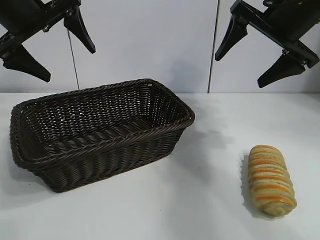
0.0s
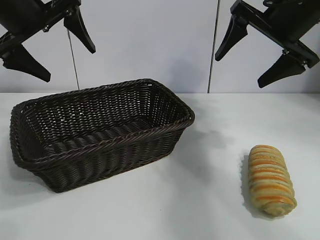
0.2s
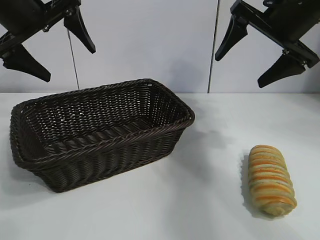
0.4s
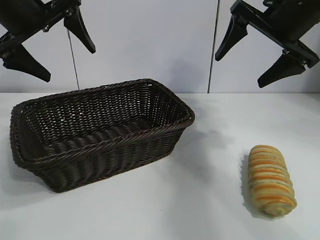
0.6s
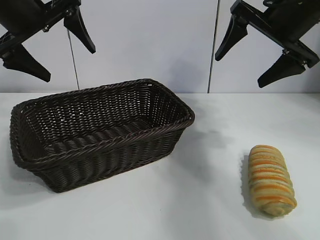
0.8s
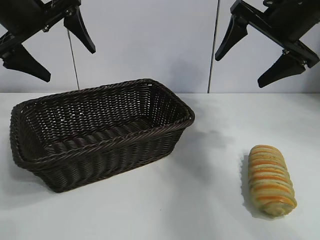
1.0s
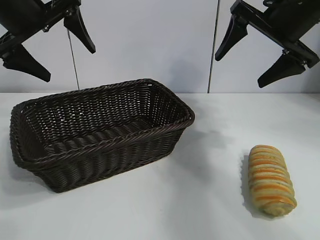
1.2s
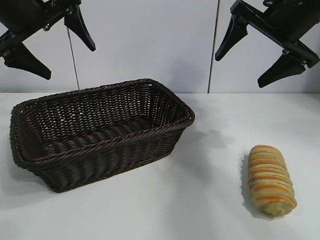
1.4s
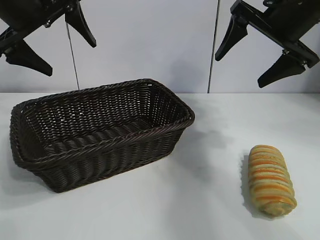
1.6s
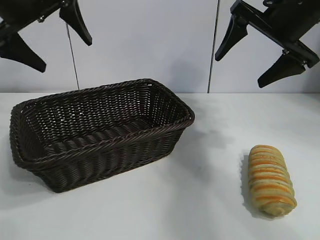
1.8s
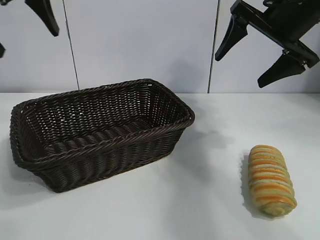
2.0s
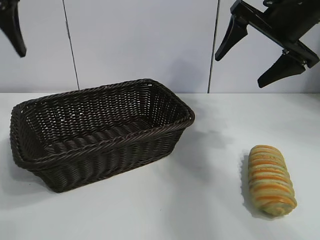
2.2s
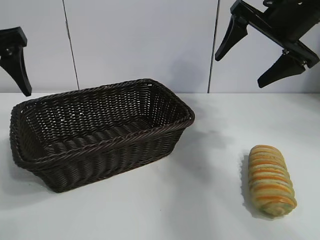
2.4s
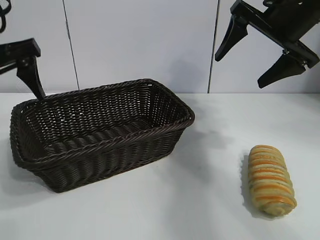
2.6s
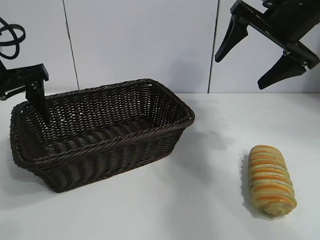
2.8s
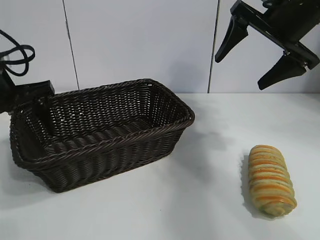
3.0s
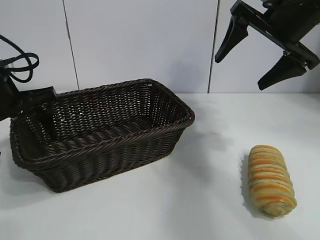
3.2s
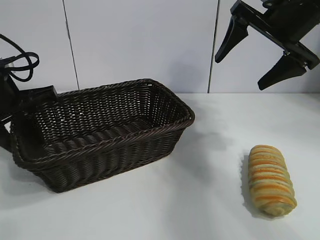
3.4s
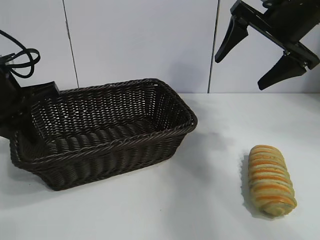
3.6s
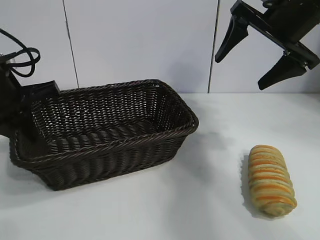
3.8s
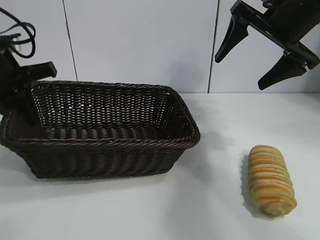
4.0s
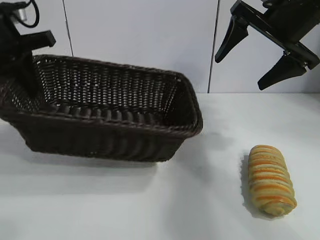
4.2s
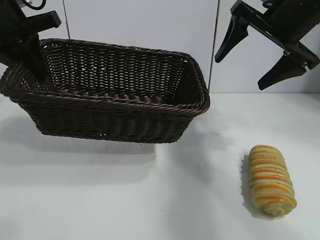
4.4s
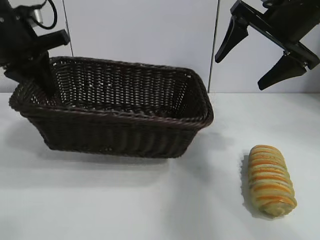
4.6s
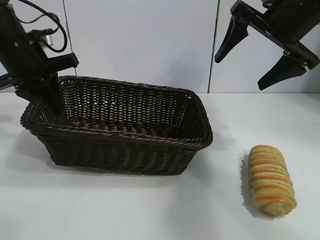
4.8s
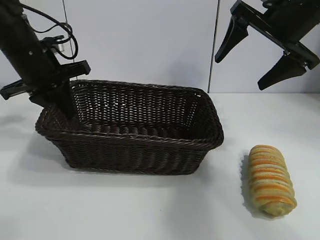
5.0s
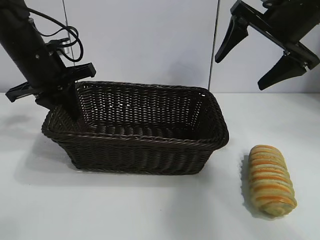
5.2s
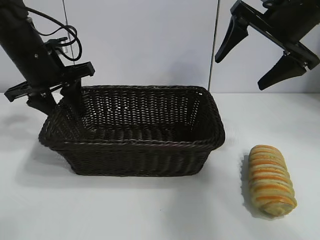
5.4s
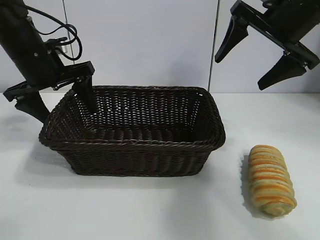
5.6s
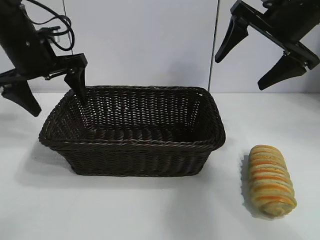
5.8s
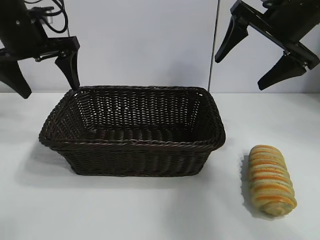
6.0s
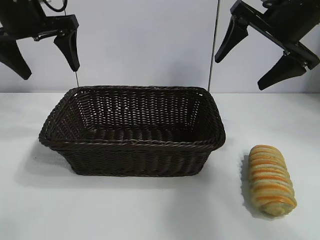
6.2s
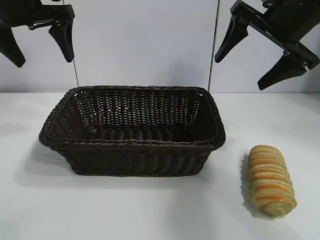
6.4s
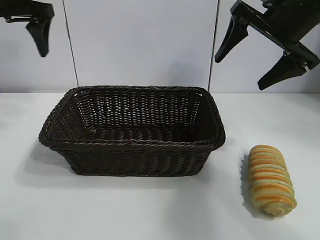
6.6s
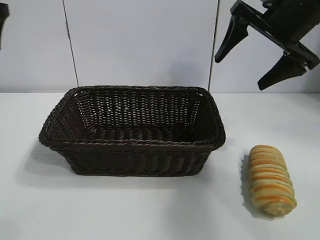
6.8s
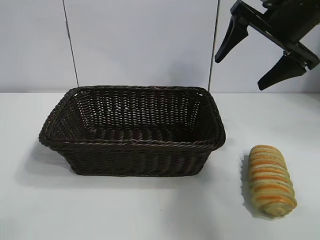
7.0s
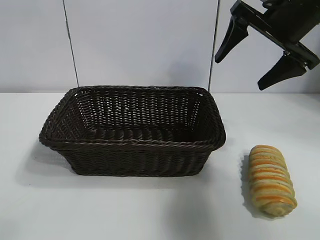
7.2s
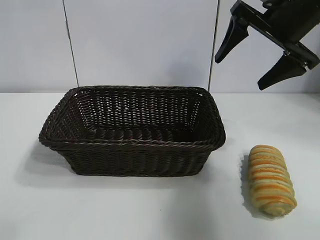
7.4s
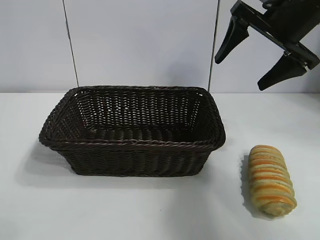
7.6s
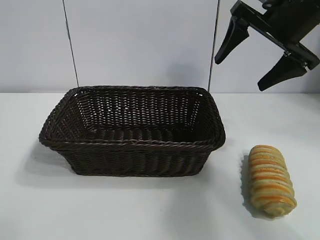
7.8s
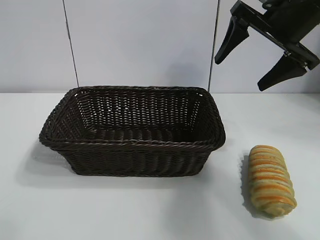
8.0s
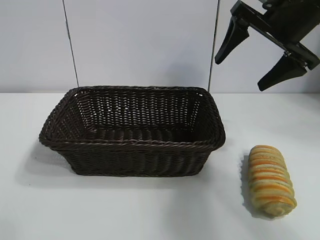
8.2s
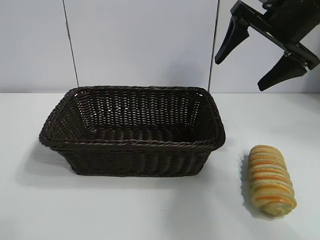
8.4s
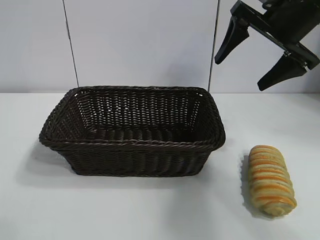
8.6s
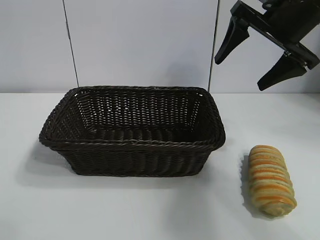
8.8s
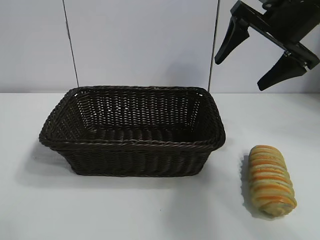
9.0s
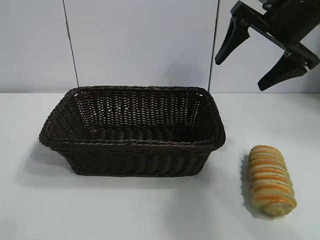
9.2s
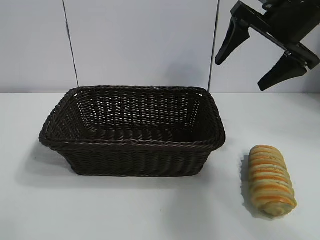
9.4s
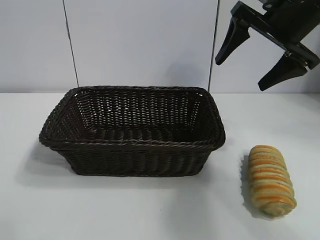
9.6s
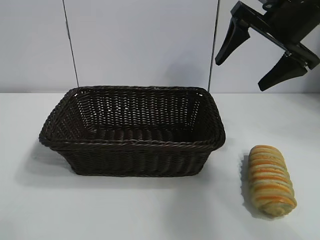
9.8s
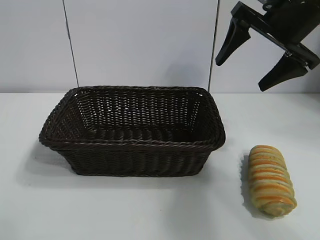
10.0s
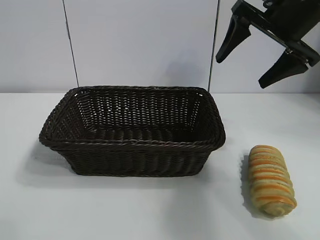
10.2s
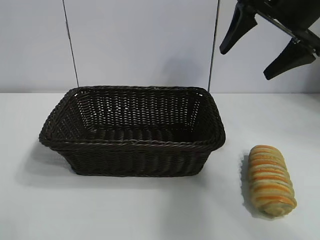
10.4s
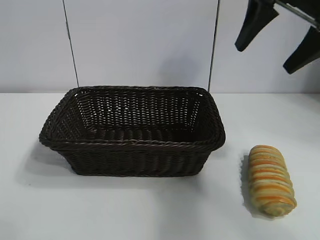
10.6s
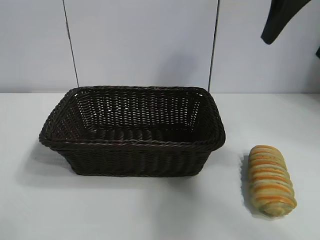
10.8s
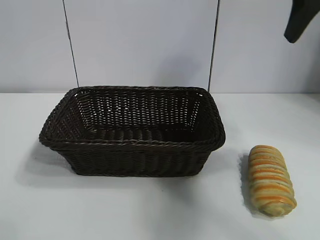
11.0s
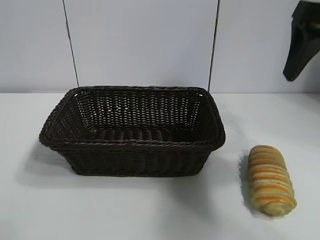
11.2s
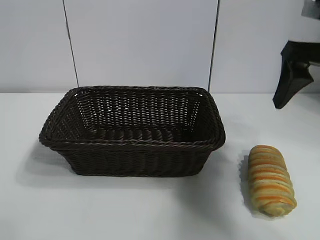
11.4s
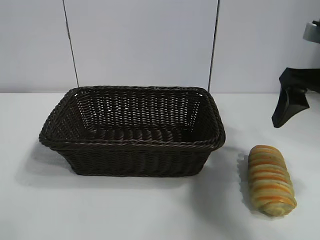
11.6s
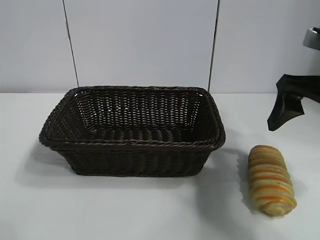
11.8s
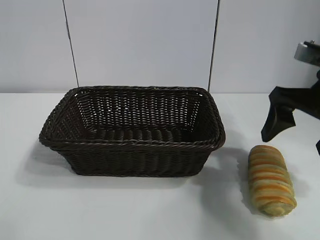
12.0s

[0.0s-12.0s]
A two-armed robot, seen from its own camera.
Task of the whole recording: pick up the long bread and put it into the basket.
Step, 1.4s to 3.2s: Grasp the basket with the left gripper.
Step, 3.6s to 6.0s: Place the basket in the center of the table with the left gripper.

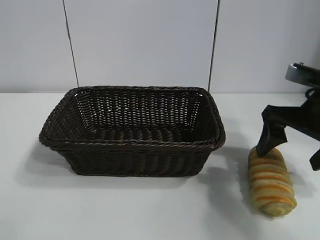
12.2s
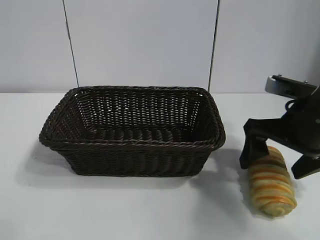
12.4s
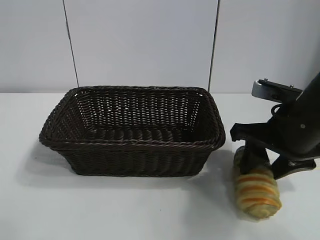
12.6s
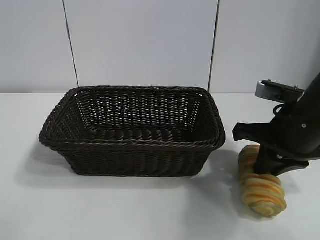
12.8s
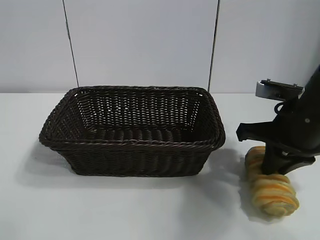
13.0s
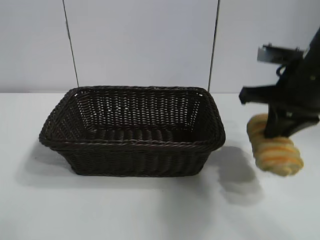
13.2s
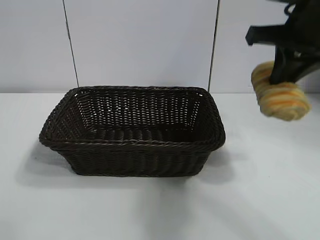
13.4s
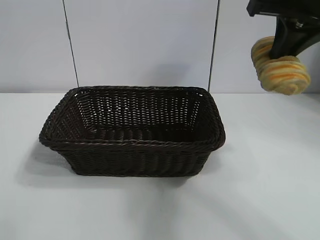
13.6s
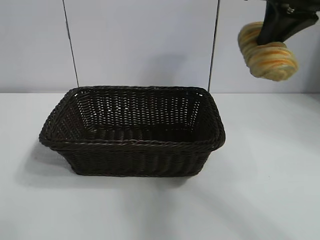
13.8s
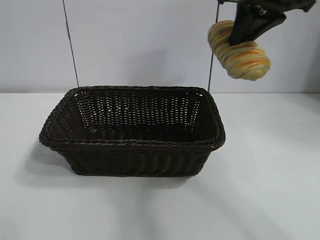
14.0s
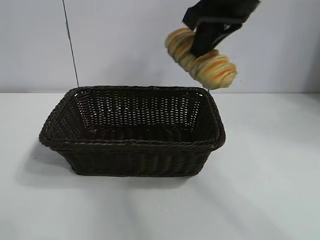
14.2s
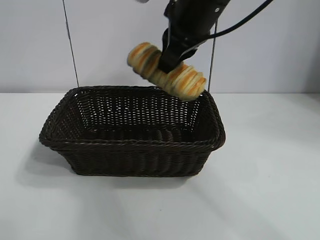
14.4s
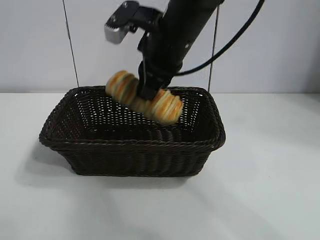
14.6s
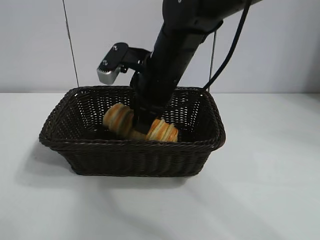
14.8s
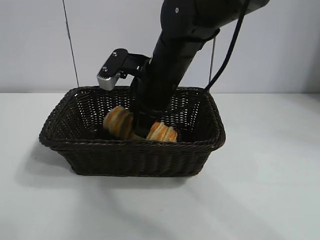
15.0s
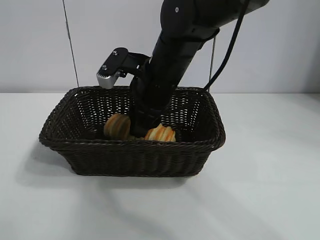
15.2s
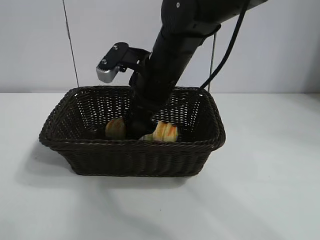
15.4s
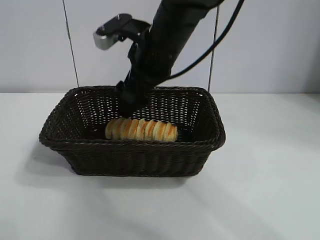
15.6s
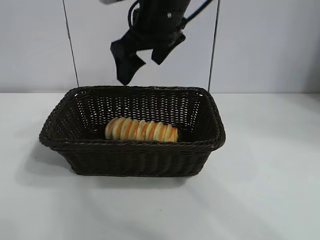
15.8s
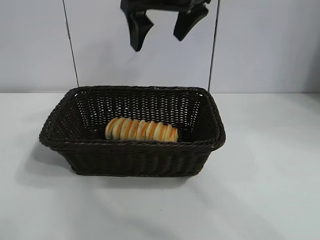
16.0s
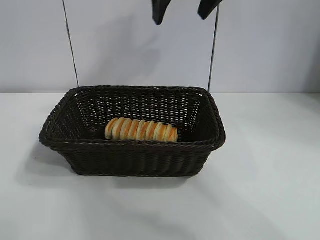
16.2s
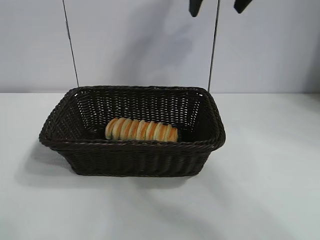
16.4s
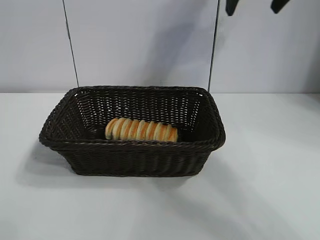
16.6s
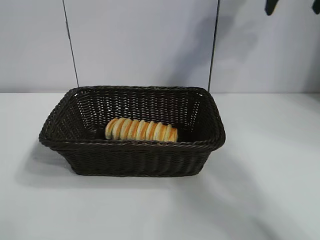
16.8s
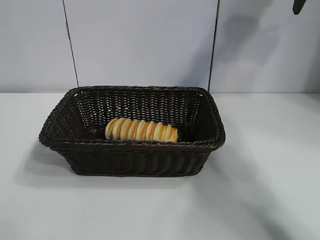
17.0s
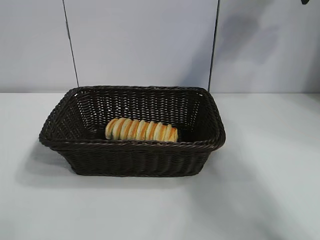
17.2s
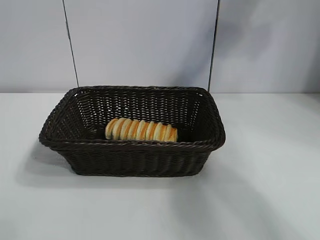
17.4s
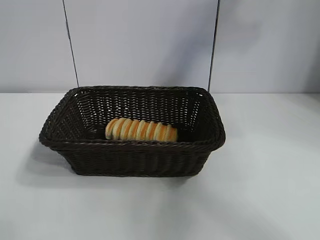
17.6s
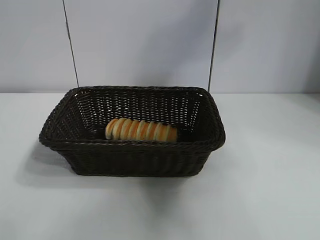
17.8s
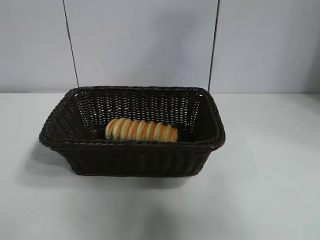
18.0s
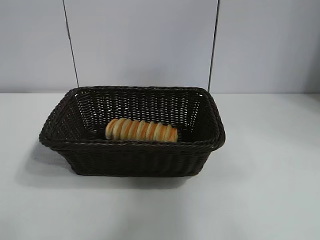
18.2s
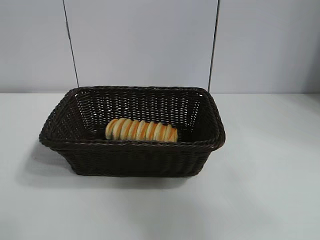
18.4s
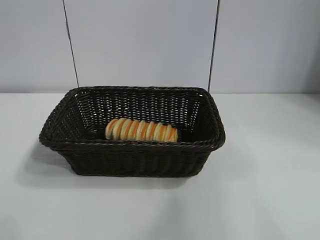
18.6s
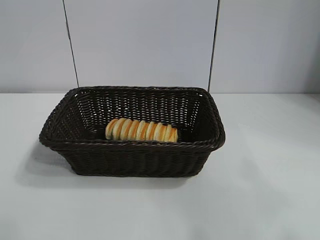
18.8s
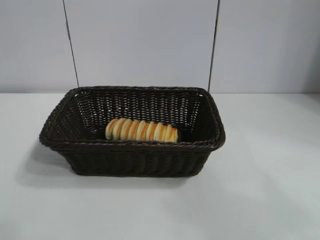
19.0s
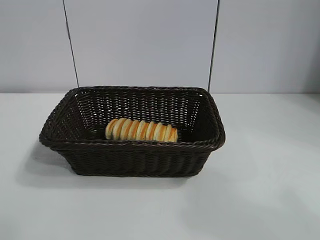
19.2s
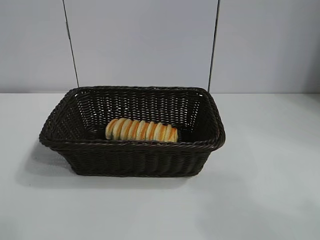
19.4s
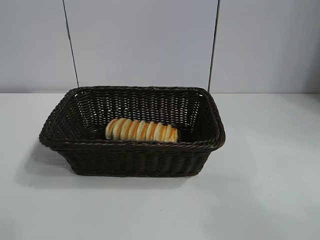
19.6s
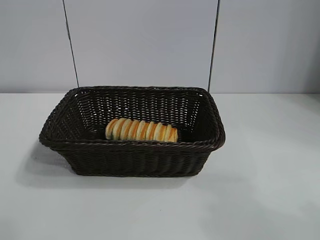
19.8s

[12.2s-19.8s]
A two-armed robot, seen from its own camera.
Task of the whole recording: pick up the long bread and put it into the basket.
Step, 13.0s to 15.2s: Place the long bread in the basket with right gripper.

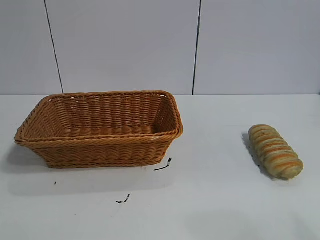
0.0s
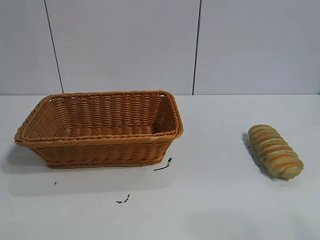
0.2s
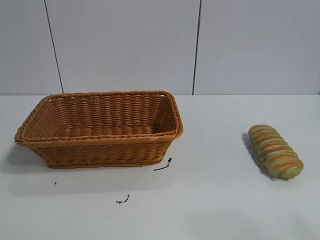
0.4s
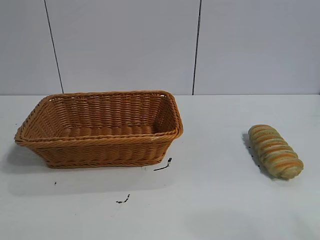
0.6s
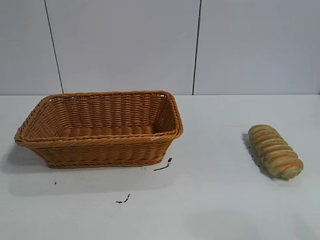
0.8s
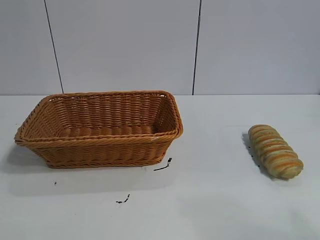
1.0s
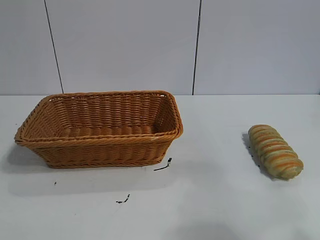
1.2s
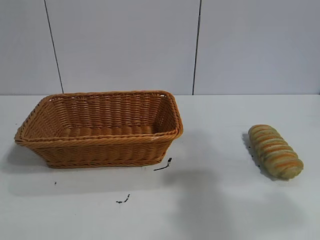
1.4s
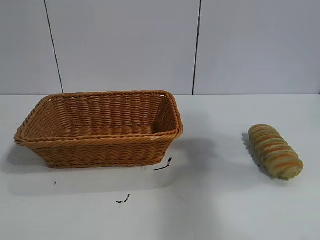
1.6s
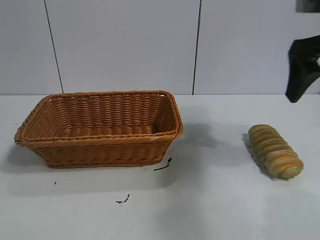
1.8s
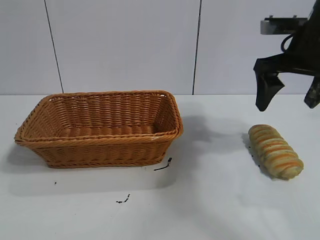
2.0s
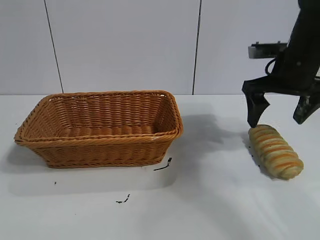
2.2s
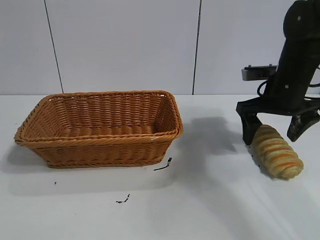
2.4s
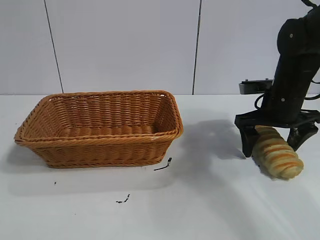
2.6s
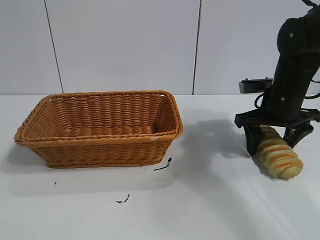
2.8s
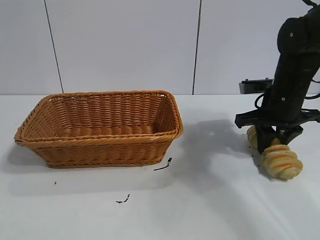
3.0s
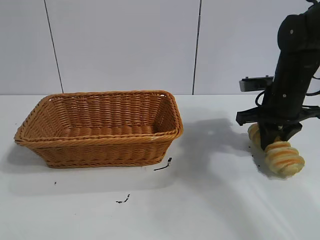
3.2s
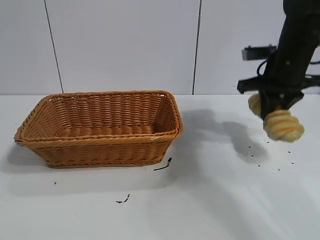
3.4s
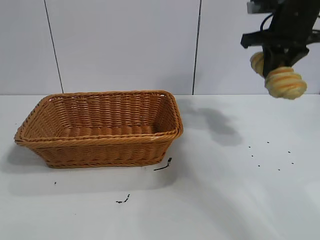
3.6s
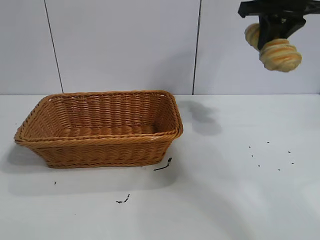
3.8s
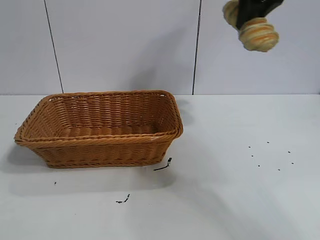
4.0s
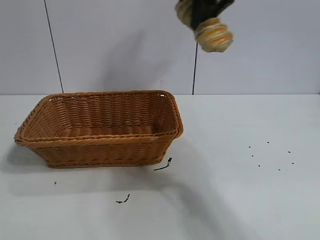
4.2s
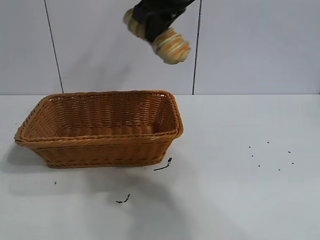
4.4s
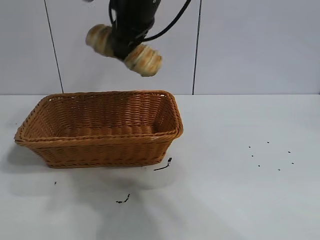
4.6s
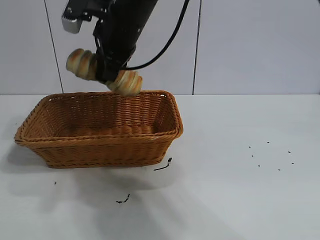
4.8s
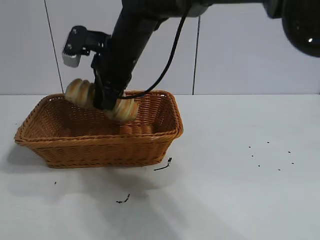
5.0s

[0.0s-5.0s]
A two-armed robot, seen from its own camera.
Task of the whole recording: pick up the long bread and put it into the basket.
Step, 1.8s to 3.2s: Grasp the long bread with right gripper.
